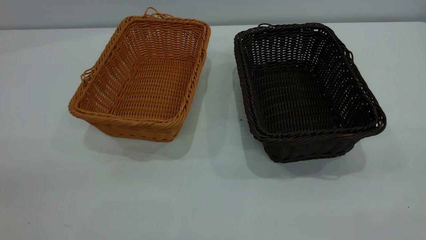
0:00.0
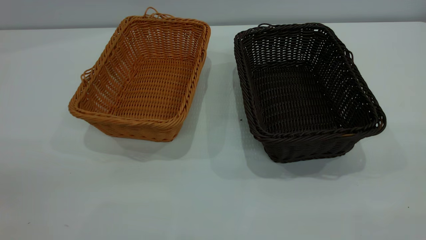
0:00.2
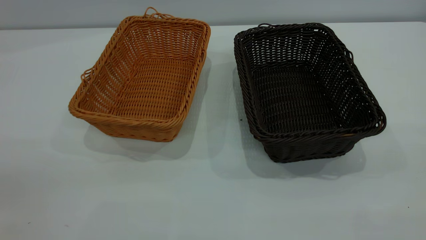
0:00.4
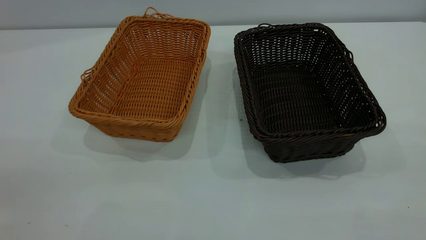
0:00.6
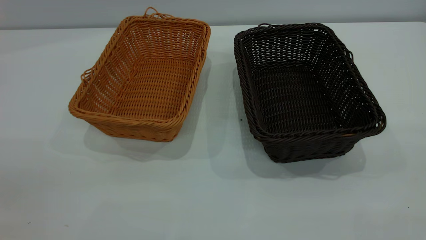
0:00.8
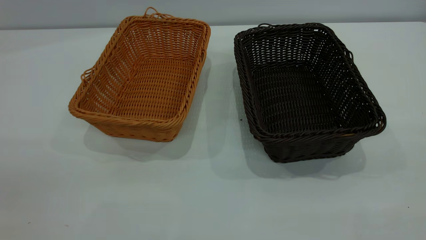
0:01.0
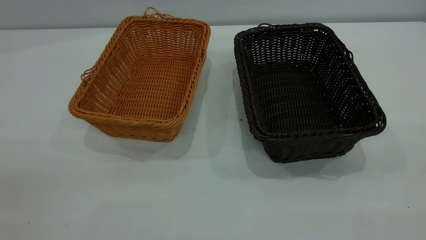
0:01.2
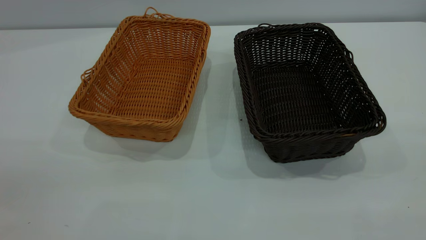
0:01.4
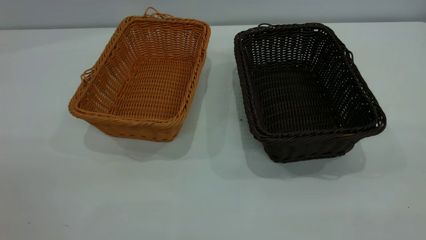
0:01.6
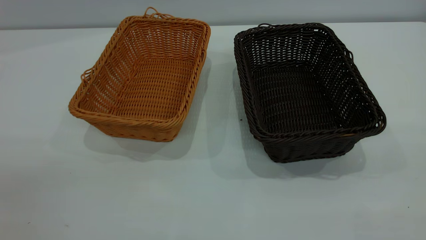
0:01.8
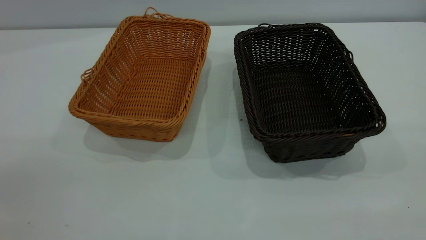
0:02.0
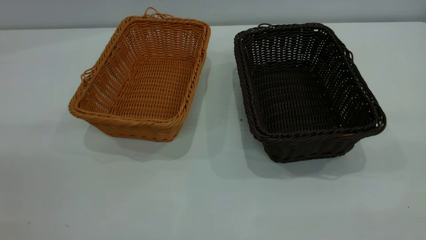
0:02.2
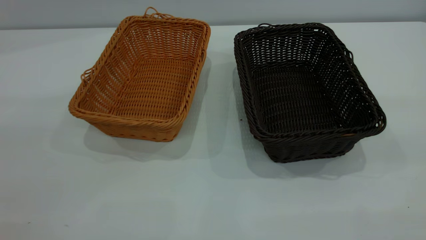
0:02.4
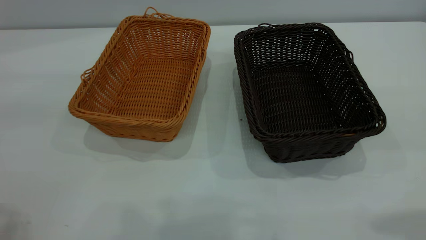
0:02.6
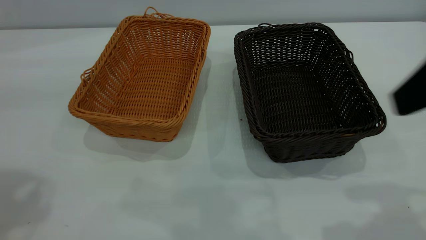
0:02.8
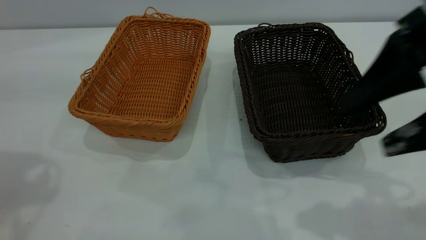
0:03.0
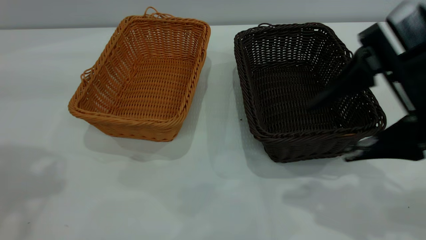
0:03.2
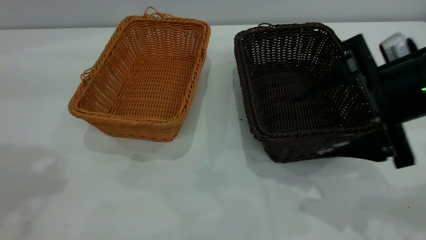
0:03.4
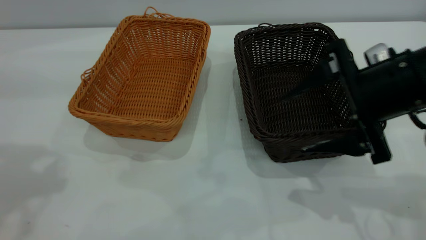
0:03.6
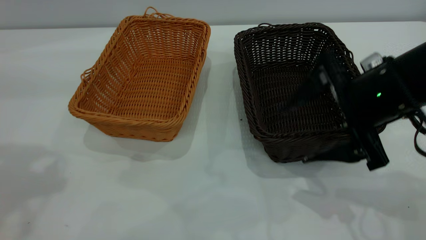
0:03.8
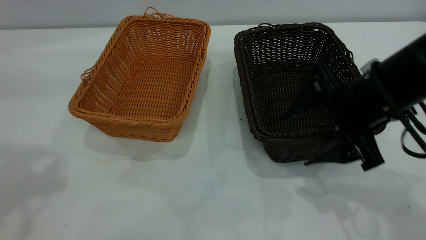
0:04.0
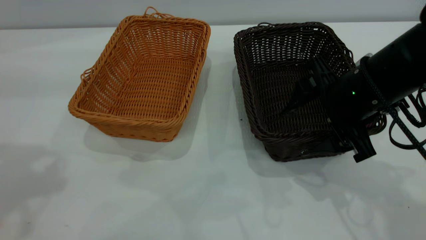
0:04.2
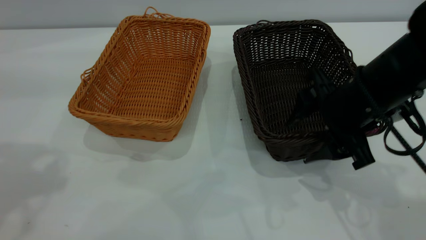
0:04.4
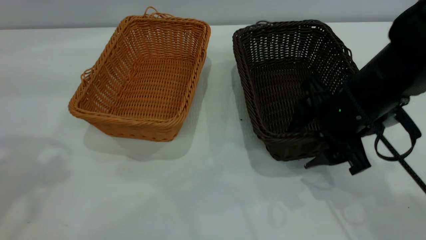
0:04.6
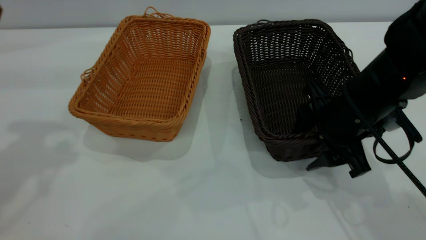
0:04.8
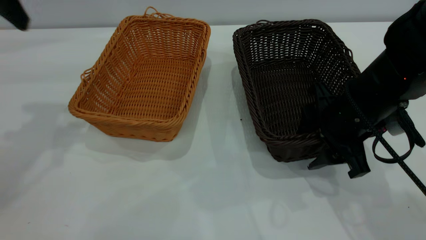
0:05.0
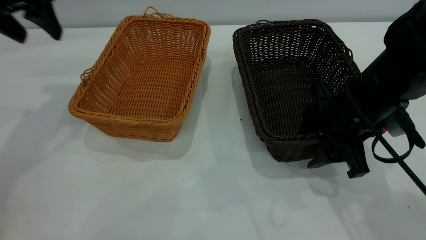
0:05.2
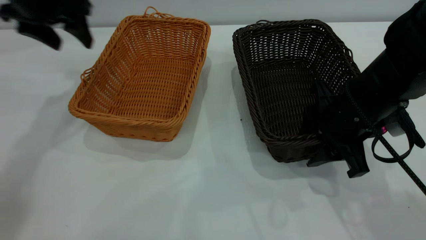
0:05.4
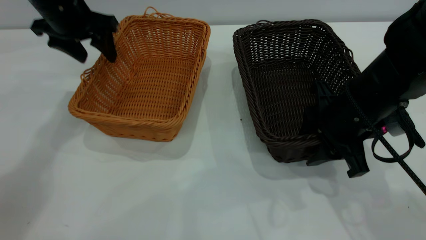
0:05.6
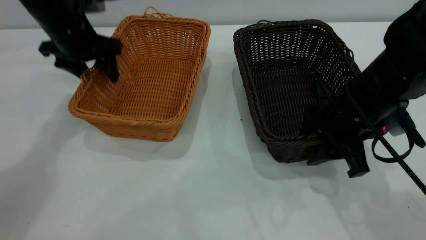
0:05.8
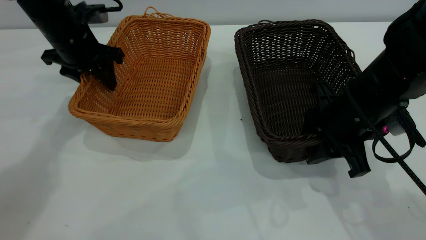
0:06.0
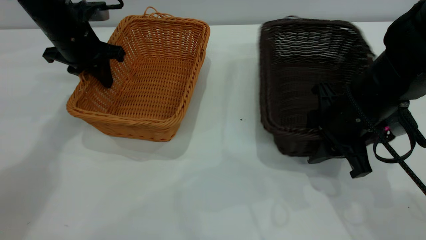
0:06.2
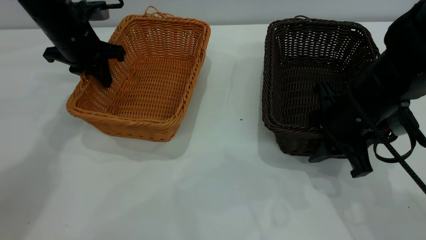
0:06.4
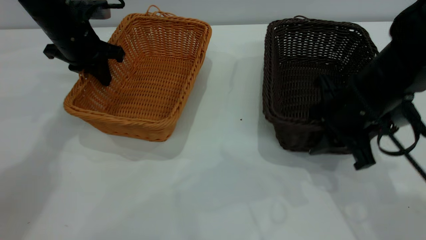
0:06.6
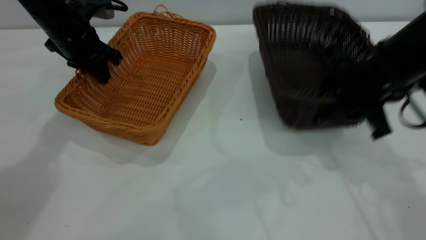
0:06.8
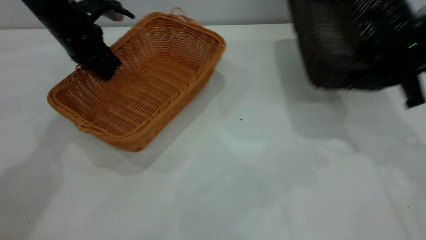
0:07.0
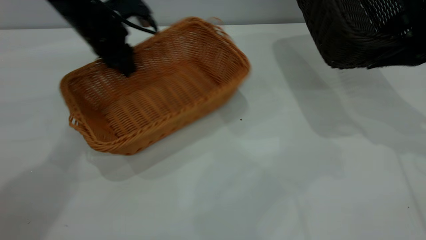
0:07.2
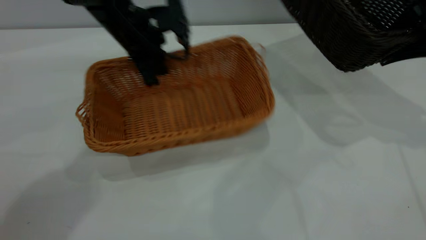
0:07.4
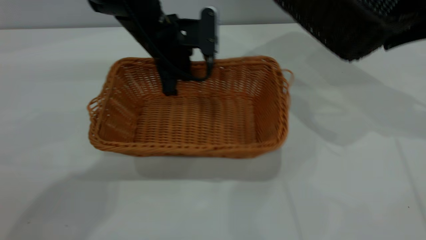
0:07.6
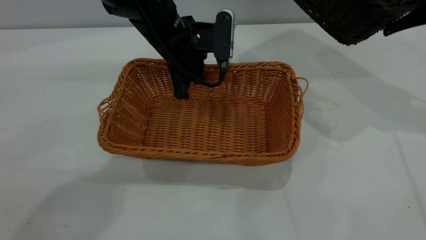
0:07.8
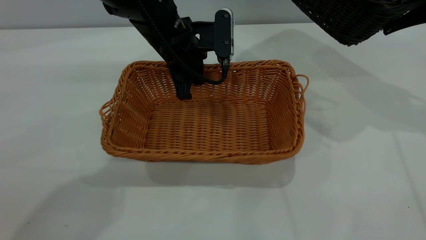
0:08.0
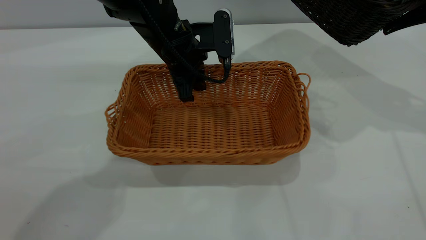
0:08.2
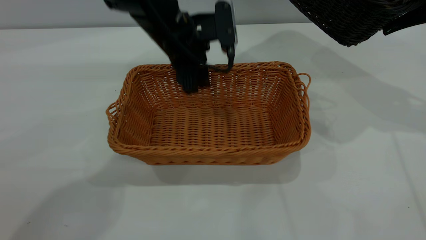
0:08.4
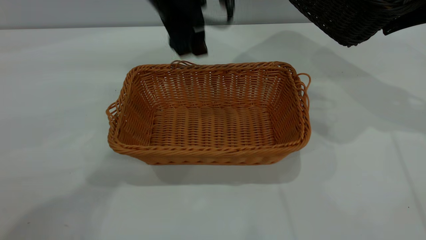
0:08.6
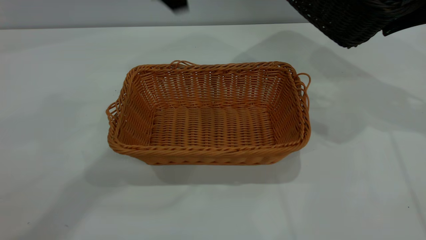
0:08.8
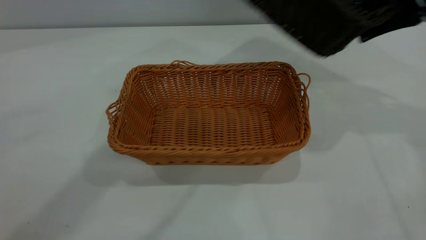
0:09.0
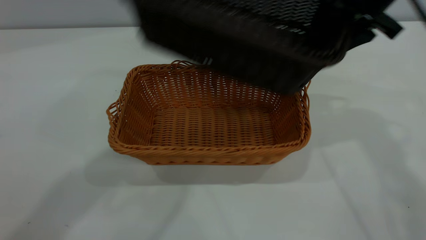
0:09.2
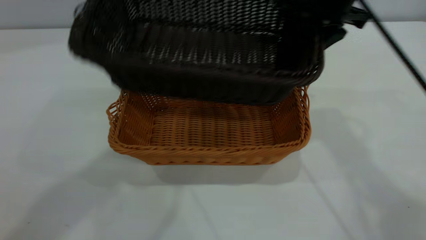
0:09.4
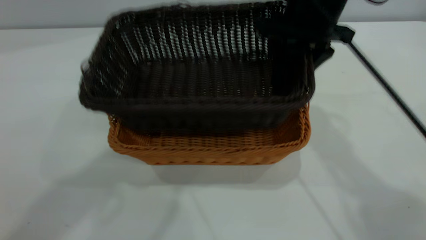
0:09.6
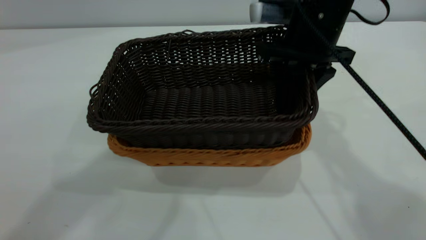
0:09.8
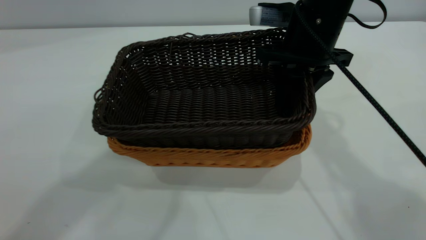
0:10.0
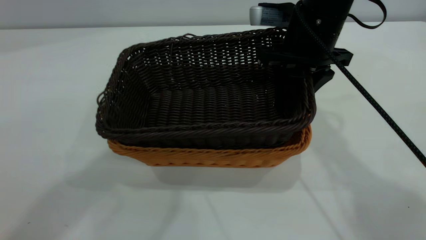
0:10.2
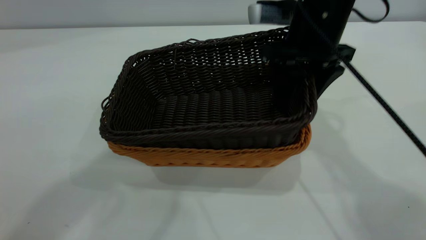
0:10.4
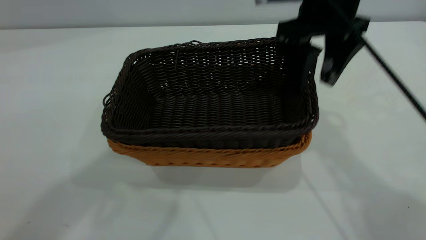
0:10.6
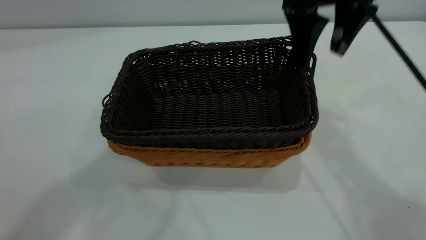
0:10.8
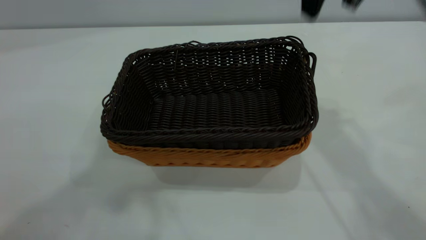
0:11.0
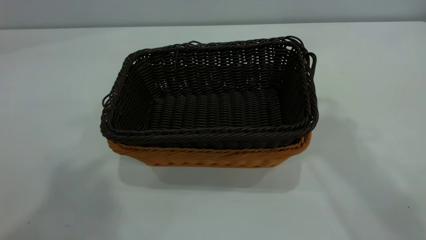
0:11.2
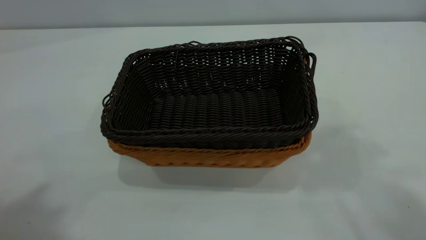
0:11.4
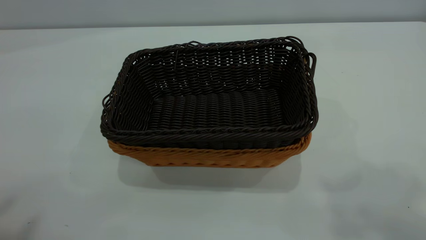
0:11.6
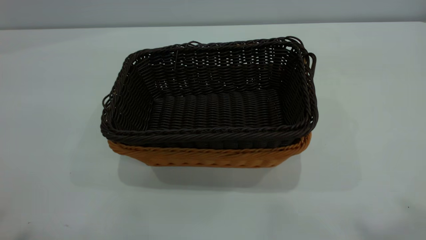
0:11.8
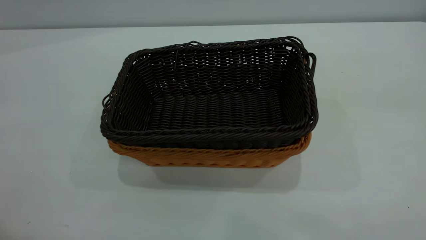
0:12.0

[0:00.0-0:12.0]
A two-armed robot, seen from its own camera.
Task of the whole recording: the left gripper grasp the brown basket and place it in the center of the table, the right gripper grasp the black basket and place it inside the brown one.
Step, 0:00.0 to 0:07.0: Pick up the light basket with the right gripper.
Step, 0:07.2 to 0:08.4: Place the light-colored basket in the center.
Step, 0:08.8 to 0:10.8: Place the dark basket on top of the light basket.
0:00.0 to 0:01.6: Neither gripper changes place.
0:01.6 to 0:03.0: The right gripper shifts some 25 cm forward and downward.
0:03.0 to 0:04.4: The right gripper moves downward and forward, approximately 15 cm.
0:04.4 to 0:06.0: The left gripper moves downward and forward, some 30 cm, and closes its fingers. Meanwhile the right gripper closes up.
0:06.0 to 0:07.6: The right gripper goes about 20 cm upward, to the right and forward. The left gripper moves to the right, about 15 cm, and closes.
0:07.6 to 0:09.0: The left gripper travels upward by approximately 30 cm, and opens up. Meanwhile the right gripper moves to the left, approximately 5 cm.
0:09.0 to 0:10.4: The left gripper shifts some 5 cm upward, while the right gripper shifts roughly 10 cm to the left, and opens.
0:10.4 to 0:12.0: The left gripper heads backward and to the left, covering about 20 cm; the right gripper shifts some 40 cm backward, upward and to the right.
